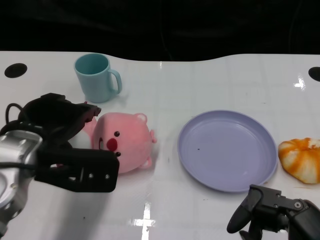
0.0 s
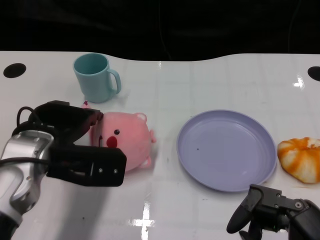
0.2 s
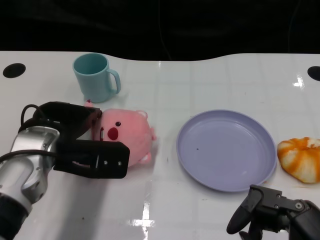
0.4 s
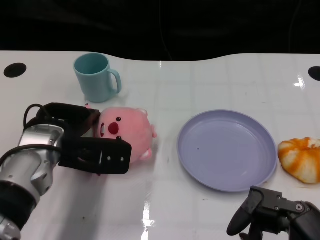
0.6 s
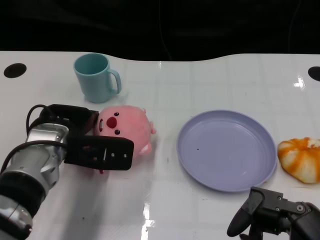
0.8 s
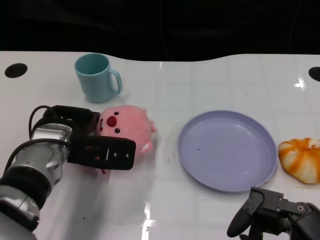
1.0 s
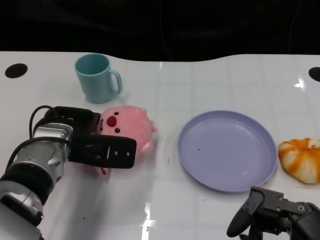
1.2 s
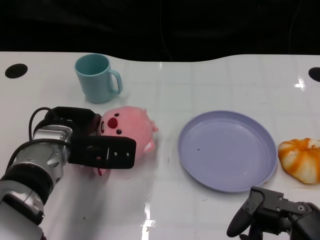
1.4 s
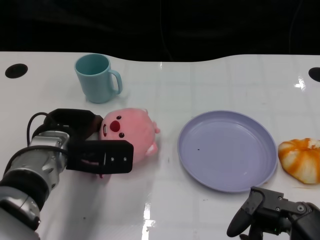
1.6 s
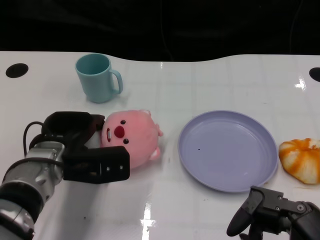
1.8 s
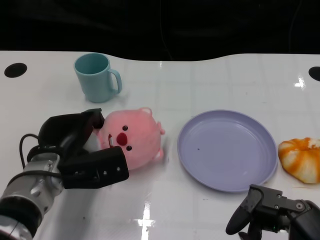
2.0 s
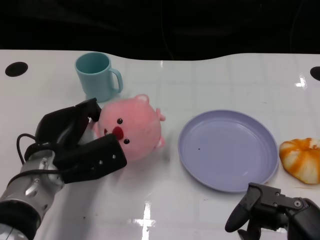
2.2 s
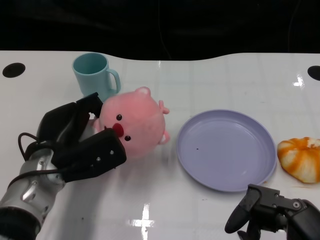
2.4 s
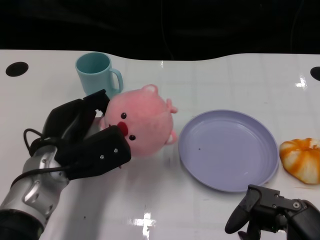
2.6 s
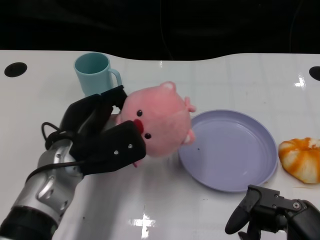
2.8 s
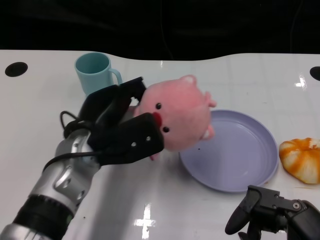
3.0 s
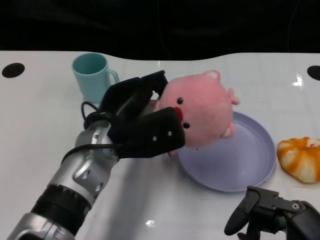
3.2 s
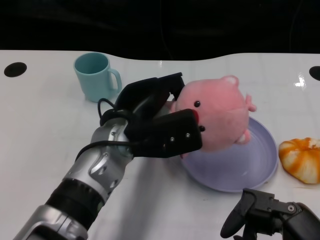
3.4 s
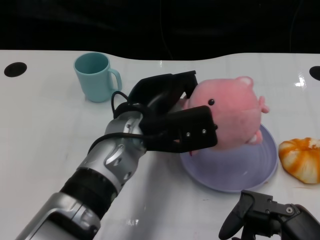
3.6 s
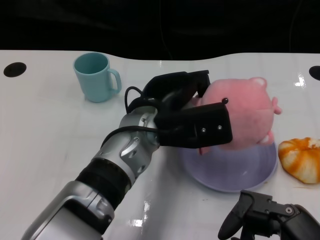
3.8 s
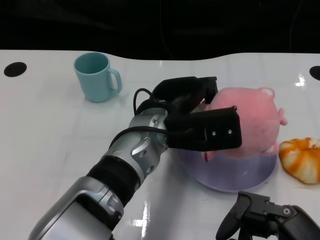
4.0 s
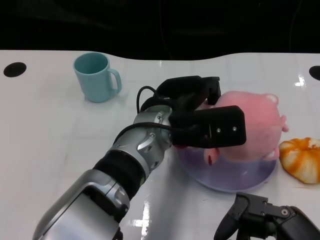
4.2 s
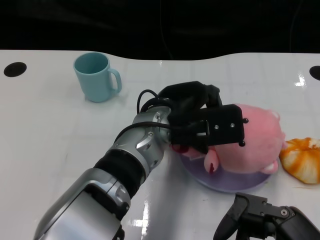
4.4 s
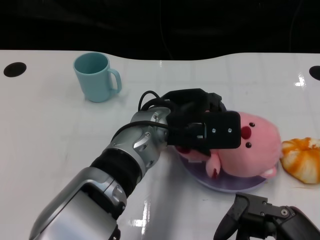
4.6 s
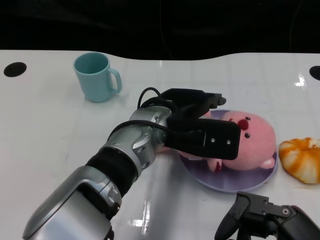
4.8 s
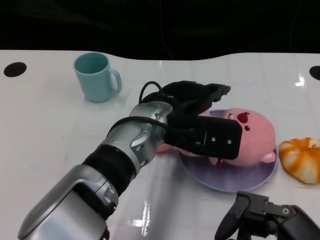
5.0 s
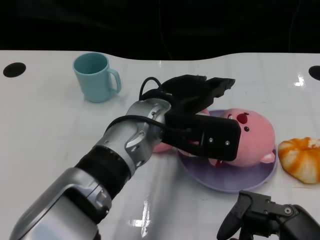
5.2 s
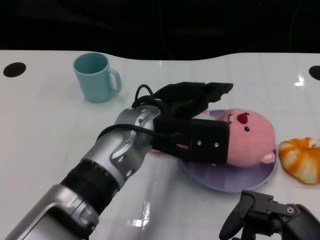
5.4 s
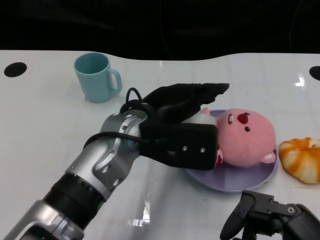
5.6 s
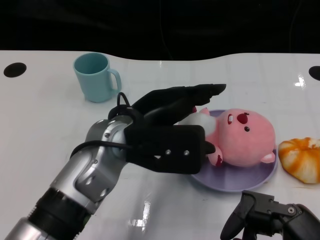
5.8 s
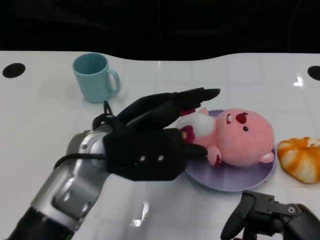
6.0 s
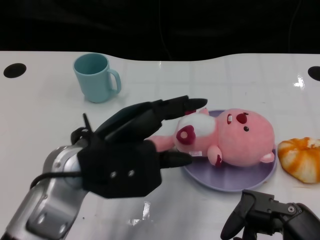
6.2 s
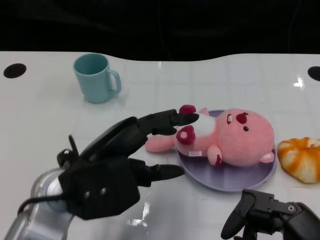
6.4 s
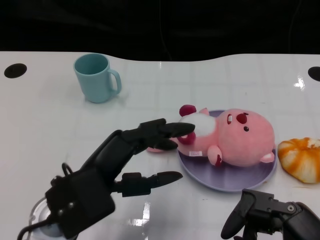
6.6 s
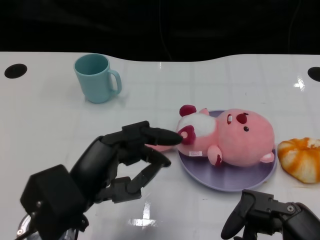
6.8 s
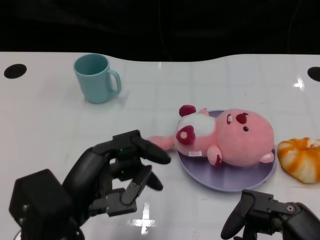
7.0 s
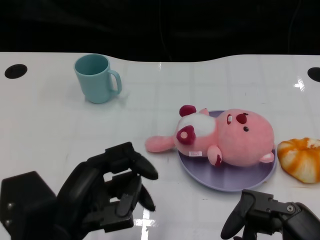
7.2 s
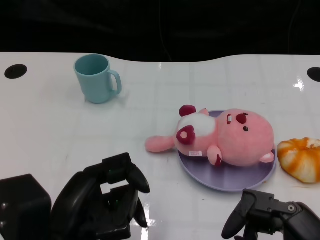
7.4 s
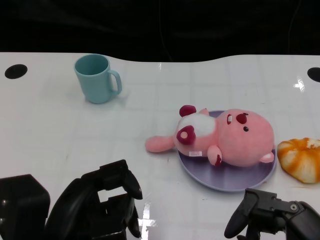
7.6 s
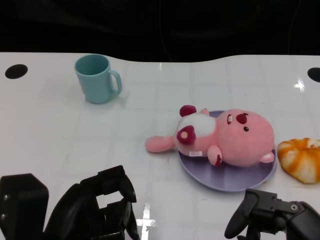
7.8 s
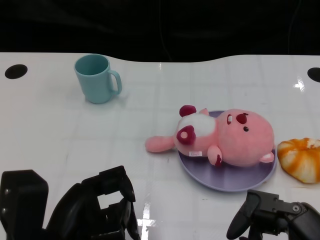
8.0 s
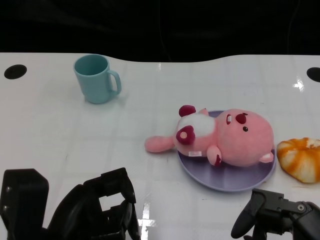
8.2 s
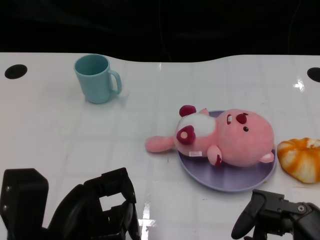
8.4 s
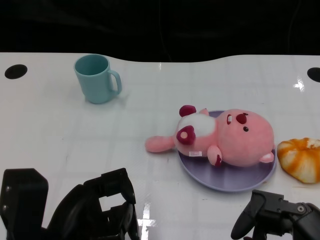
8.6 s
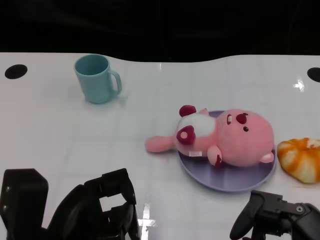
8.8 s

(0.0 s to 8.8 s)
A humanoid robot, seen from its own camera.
Task of the whole recording: Pick up the doll on one side of the plate and place it into the plate.
Step, 0.0 s - 2.0 s: Grasp the pink doll with the left gripper.
Step, 2.2 s - 4.8 s: Place the pink doll into the plate with the left gripper.
0.0 s - 1.4 s: The left hand shifts roughly 10 cm downward and forward.
1.4 s - 3.0 s: The left hand moves some 5 cm.
3.0 s - 4.4 s: The left hand travels to the right by some 10 cm.
4.4 s - 5.8 s: The left hand travels to the left by approximately 5 cm.
5.8 s - 7.4 s: The left hand heads backward and to the left, covering approximately 15 cm.
7.4 s - 8.8 s: The hands move only a little.

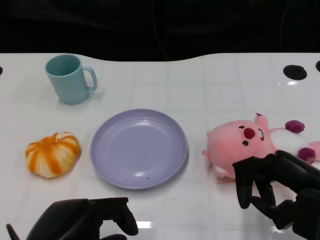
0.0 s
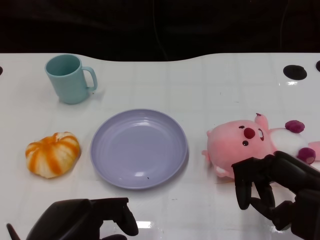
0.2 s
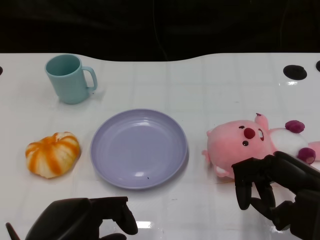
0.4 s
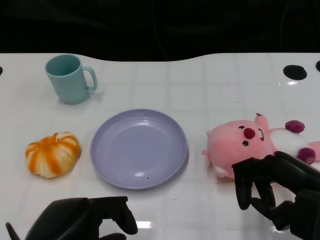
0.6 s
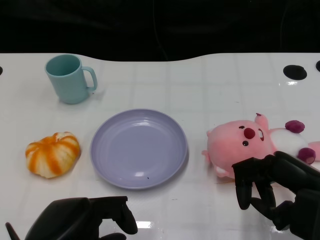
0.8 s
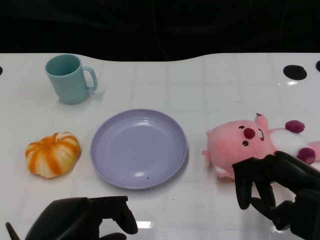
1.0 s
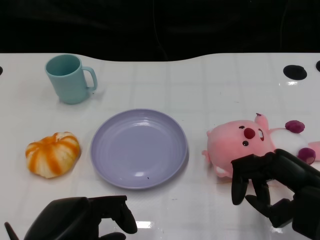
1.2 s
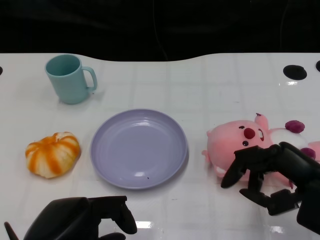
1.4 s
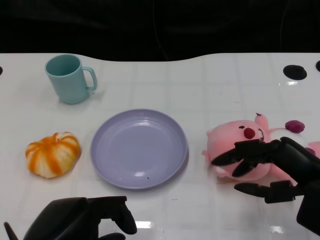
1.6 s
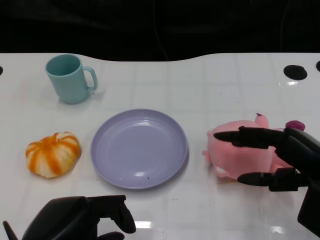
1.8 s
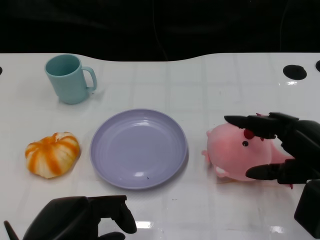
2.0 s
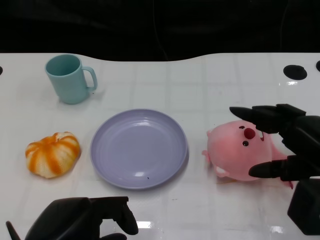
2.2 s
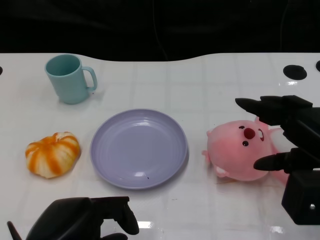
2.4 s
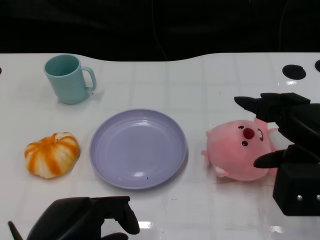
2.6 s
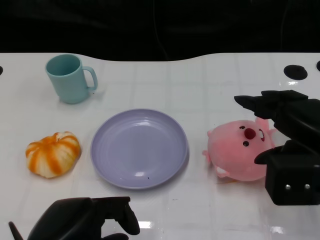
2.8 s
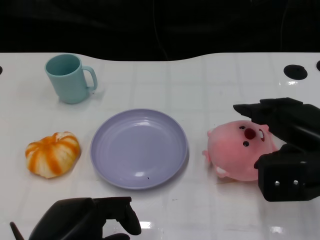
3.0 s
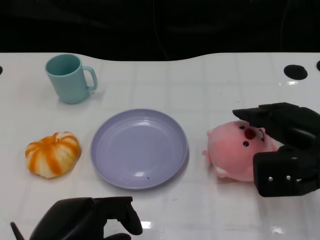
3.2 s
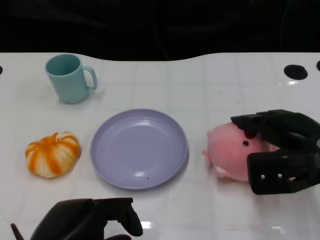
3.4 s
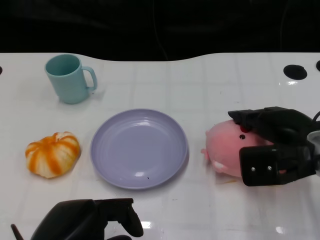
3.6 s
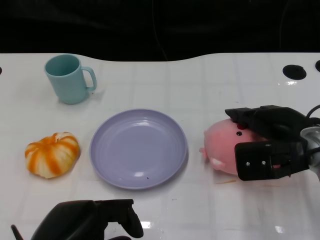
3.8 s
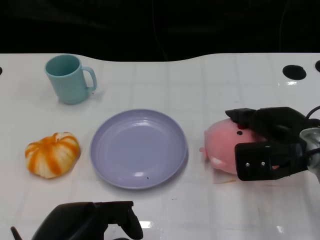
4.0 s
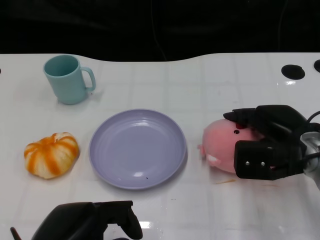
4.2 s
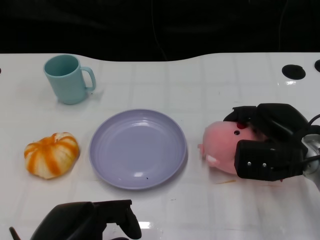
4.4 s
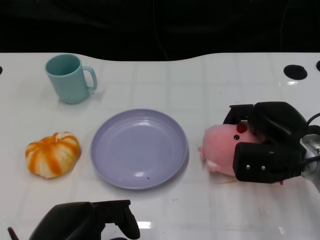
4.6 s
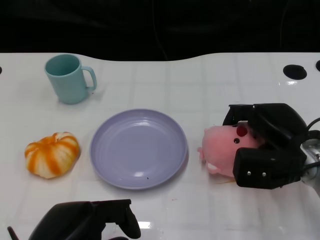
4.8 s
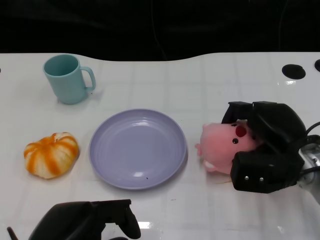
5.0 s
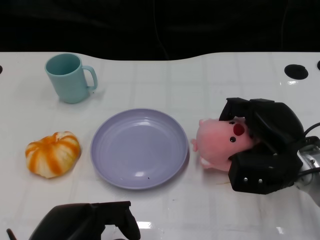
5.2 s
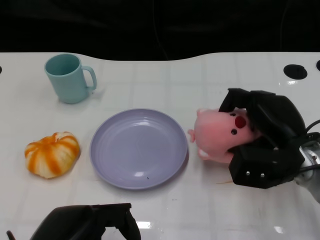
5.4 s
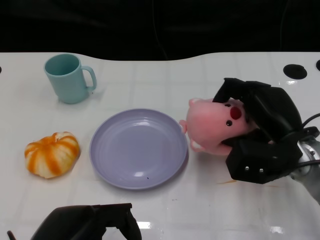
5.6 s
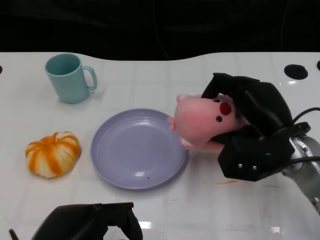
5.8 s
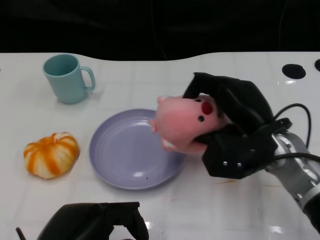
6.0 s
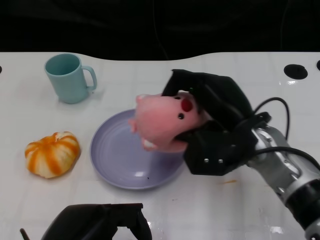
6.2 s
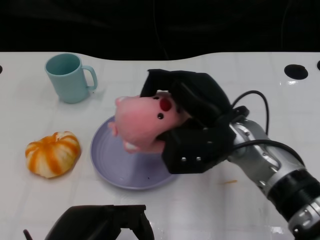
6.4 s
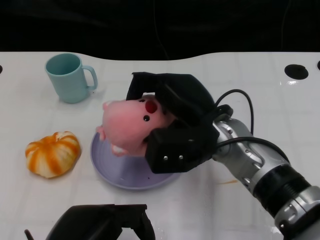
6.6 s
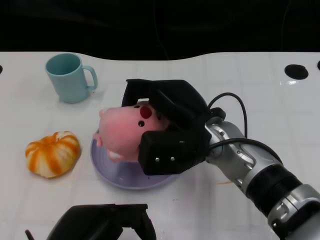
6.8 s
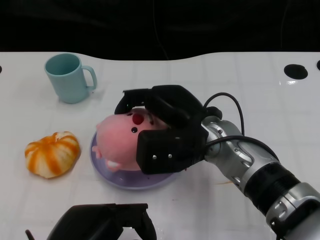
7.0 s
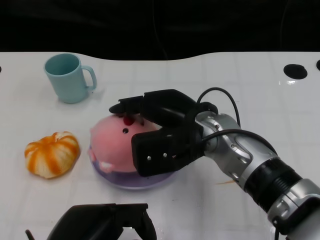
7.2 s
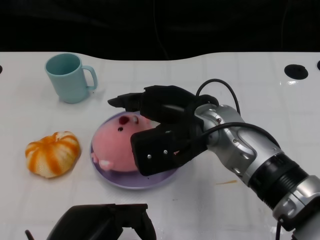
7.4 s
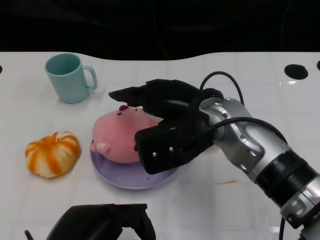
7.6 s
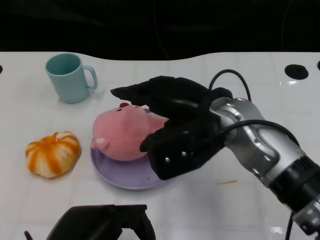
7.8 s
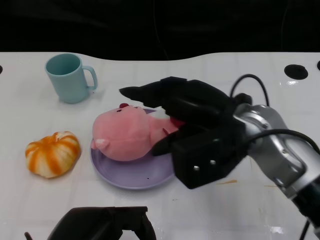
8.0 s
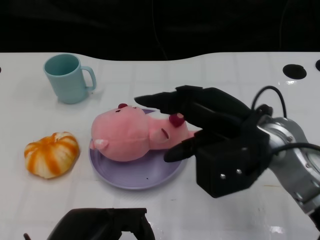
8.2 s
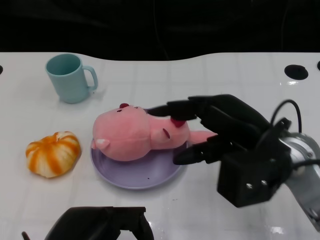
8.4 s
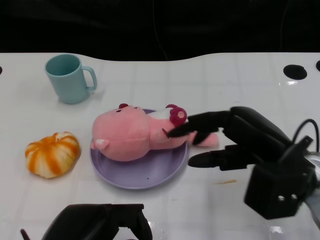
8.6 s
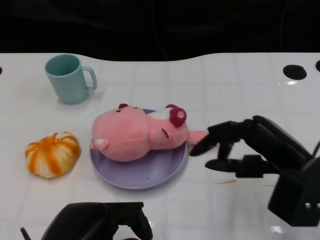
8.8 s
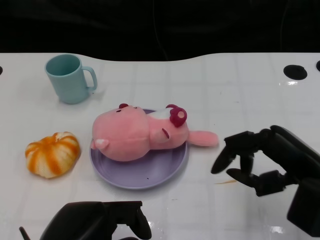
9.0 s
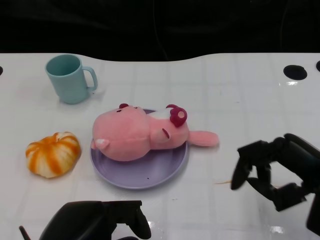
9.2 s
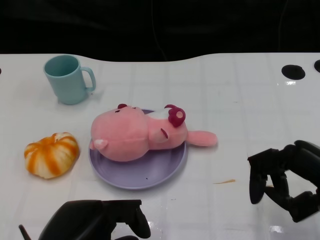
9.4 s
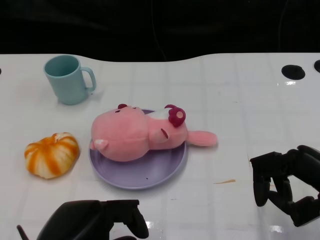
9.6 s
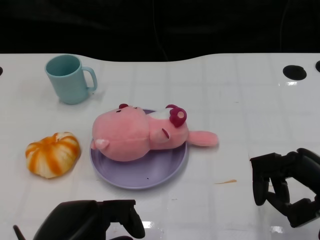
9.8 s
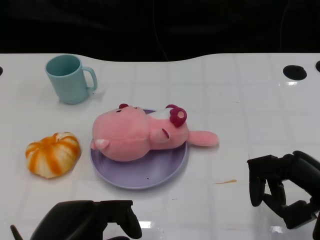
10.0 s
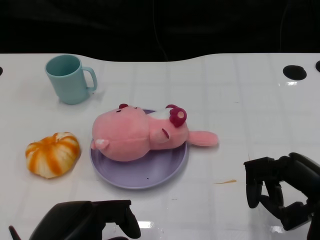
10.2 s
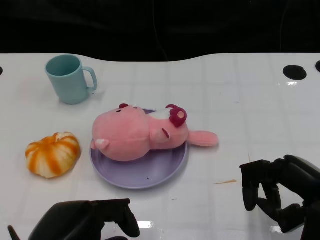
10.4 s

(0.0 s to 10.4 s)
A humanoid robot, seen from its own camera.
Task of the whole recording: Pick up the doll on the other side of the plate and place it into the plate.
Step, 1.0 s - 5.6 s: Grasp the pink doll with the right gripper.
Step, 5.8 s - 7.8 s: Place the pink doll into the plate with the right gripper.
1.4 s - 3.0 s: The right hand ends up some 5 cm from where it was.
3.0 s - 4.4 s: The right hand shifts approximately 5 cm downward.
4.4 s - 6.0 s: The right hand is displaced to the left by approximately 5 cm.
6.0 s - 7.4 s: The right hand travels to the left by some 10 cm.
7.4 s - 9.0 s: The right hand heads to the right and backward, covering about 20 cm.
9.0 s - 10.4 s: The hands make only small movements.

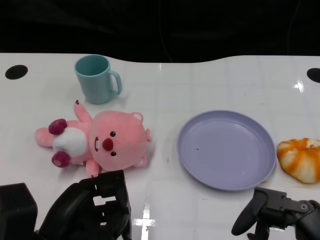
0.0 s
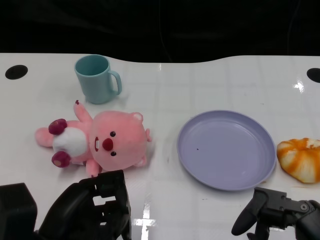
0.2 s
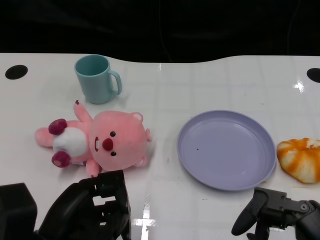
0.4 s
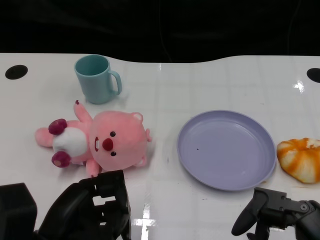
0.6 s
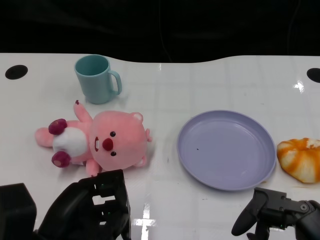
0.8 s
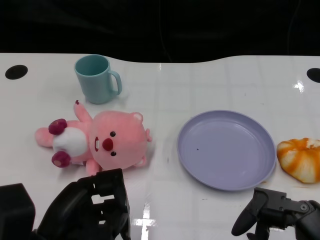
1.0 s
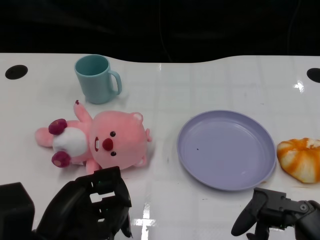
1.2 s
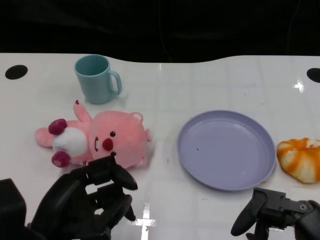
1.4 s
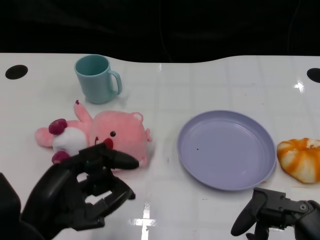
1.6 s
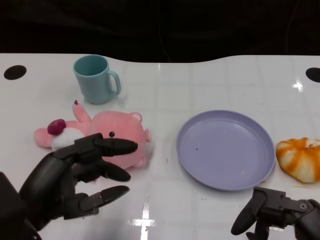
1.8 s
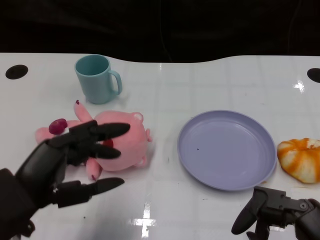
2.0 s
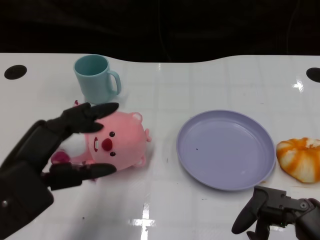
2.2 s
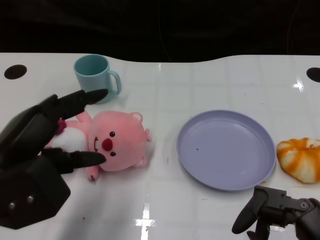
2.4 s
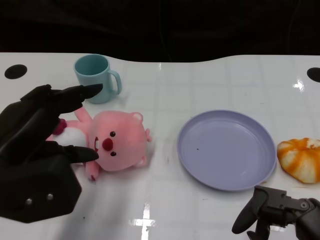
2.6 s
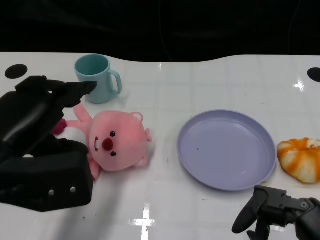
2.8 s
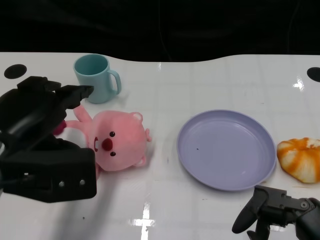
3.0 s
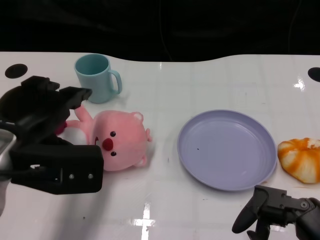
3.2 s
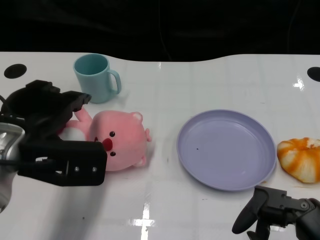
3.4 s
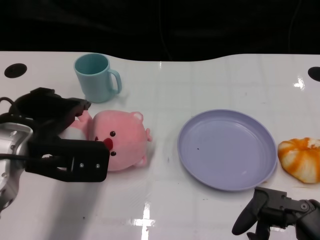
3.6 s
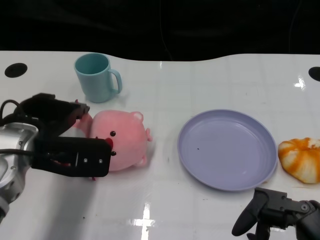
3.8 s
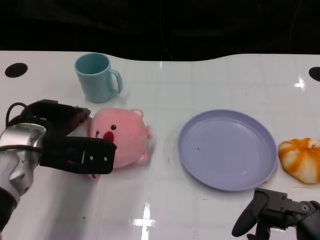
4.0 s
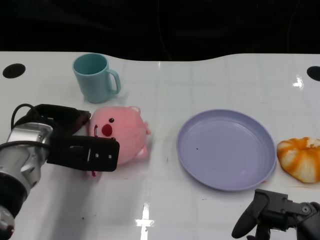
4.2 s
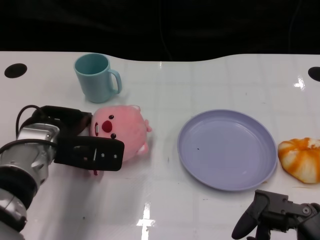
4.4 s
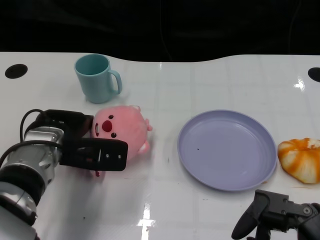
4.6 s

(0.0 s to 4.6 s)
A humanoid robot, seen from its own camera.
Task of the whole recording: Pick up the doll on one side of the plate and place it into the plate.
1.6 s - 3.0 s: The left hand is displaced upward and forward by about 10 cm.
3.0 s - 4.6 s: The left hand heads downward and forward, covering roughly 15 cm.
